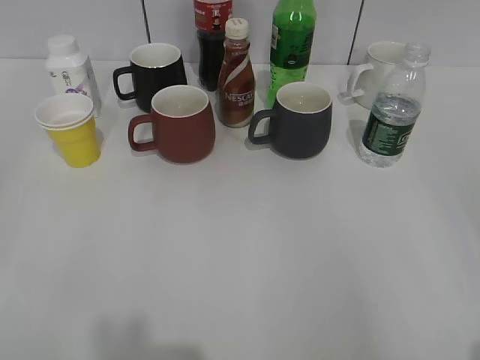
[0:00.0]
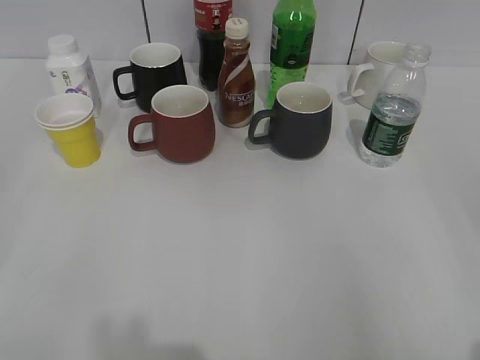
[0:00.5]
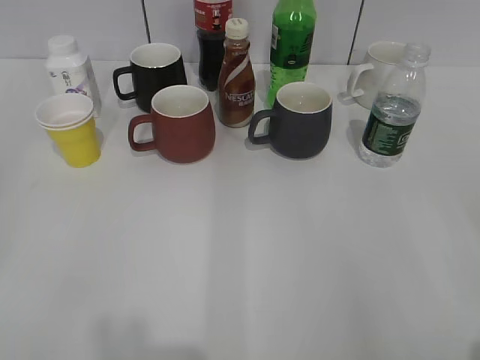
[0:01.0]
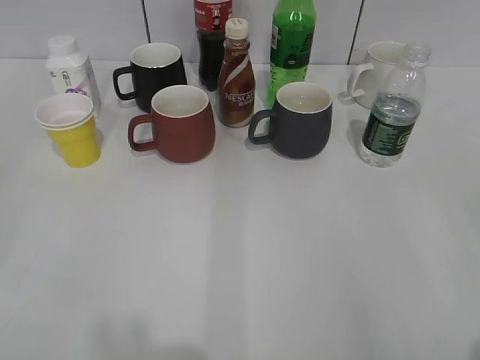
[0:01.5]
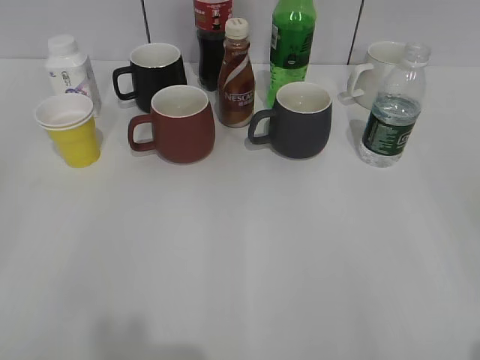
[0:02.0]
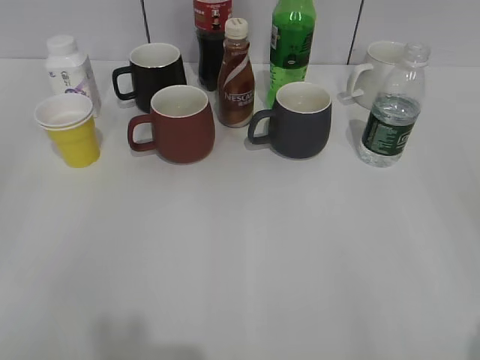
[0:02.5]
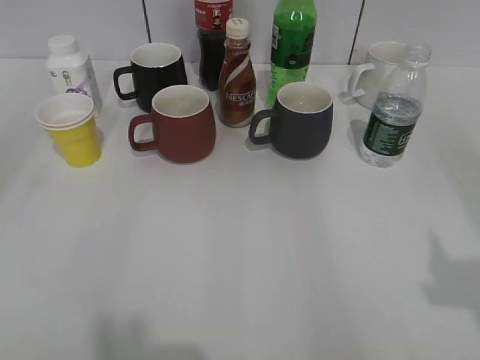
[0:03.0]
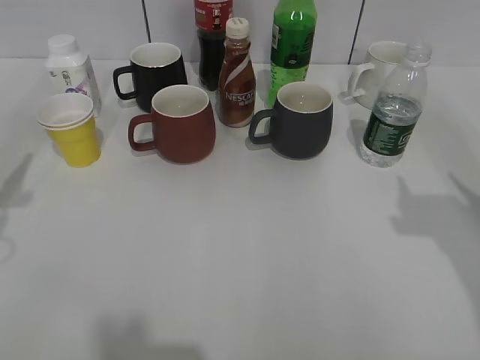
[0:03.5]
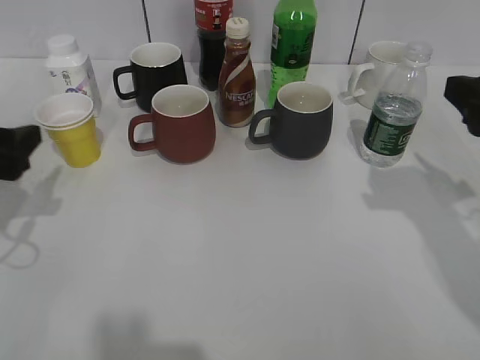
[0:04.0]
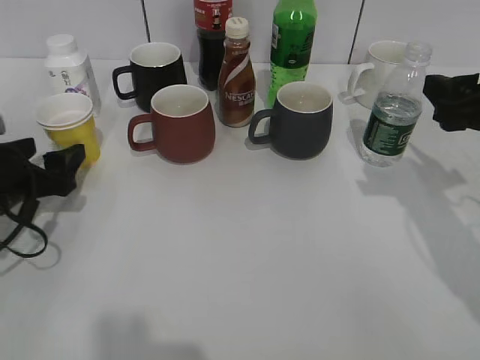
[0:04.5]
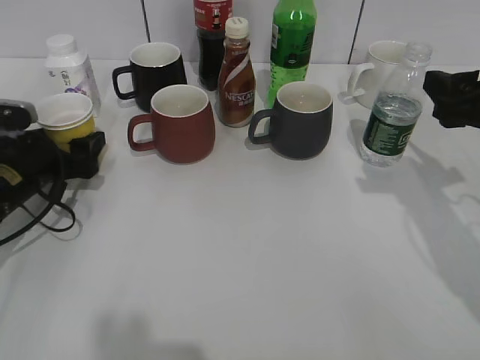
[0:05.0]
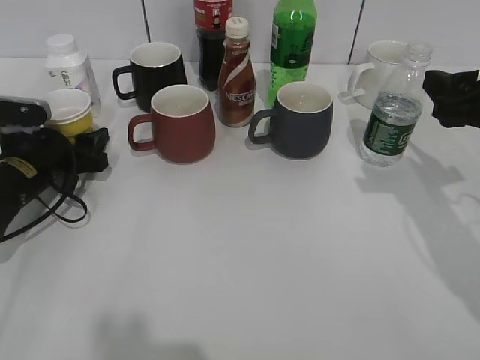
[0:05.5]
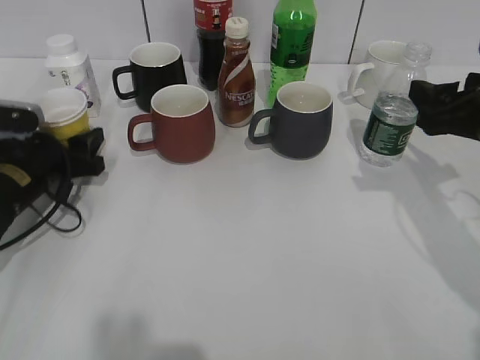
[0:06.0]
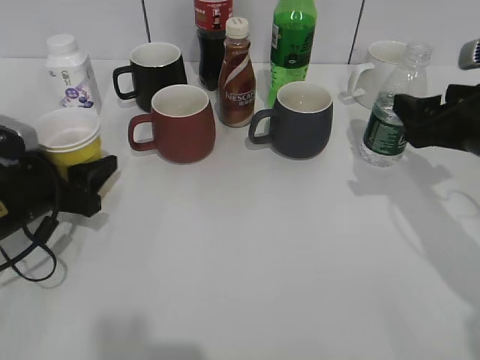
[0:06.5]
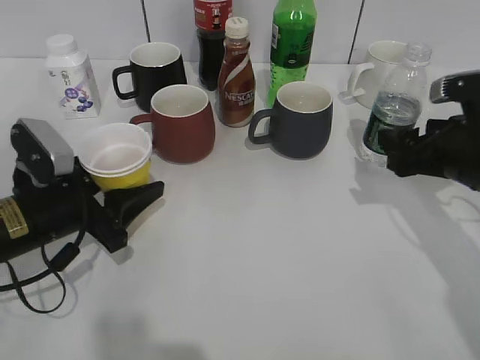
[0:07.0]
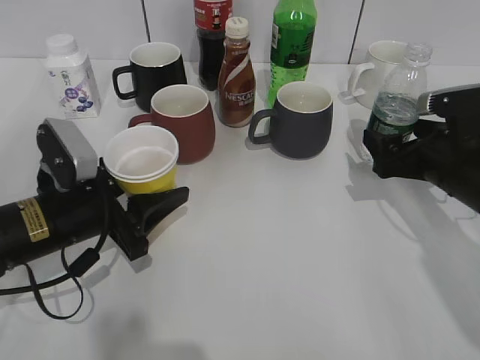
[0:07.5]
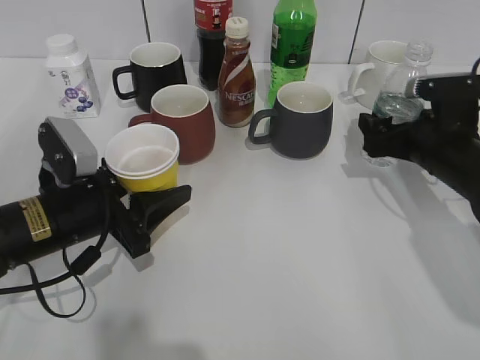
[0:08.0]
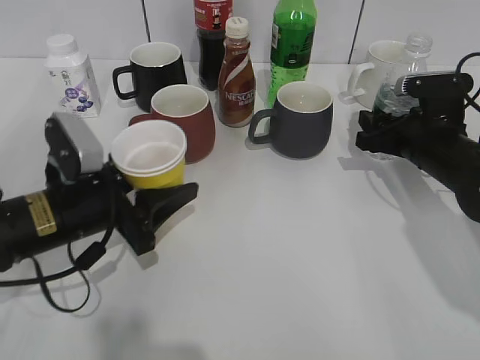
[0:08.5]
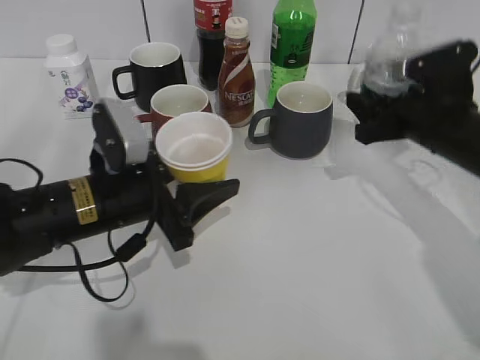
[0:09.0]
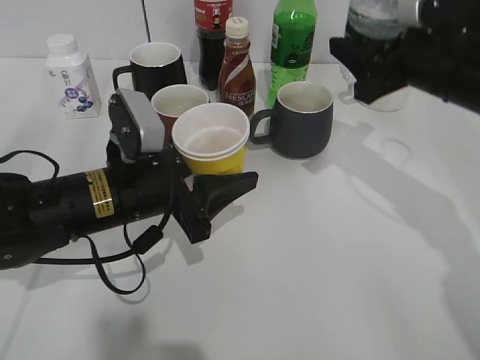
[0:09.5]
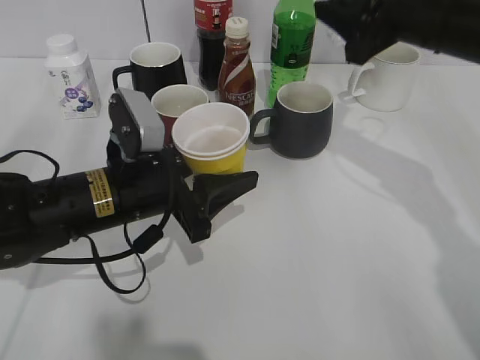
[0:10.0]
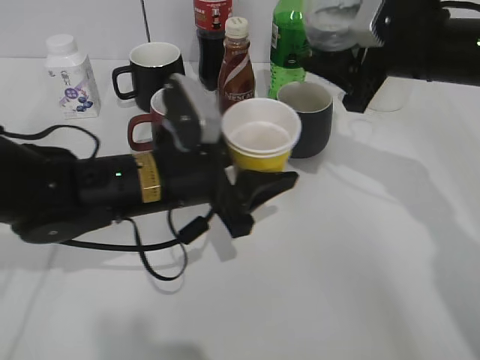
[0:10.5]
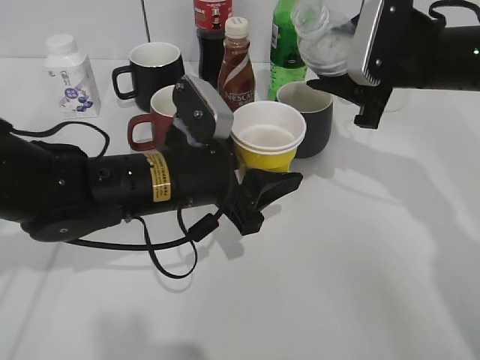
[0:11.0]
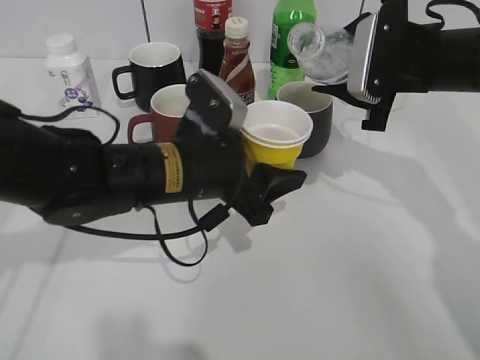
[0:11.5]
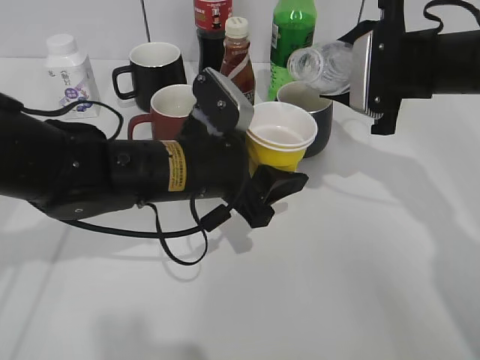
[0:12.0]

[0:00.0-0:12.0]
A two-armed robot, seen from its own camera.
Step, 0:02.5 to 0:05.5: Grasp the yellow paper cup with left gripper.
Step, 0:06.0 to 0:08.0: Grasp the bottle with water with right gripper.
0:02.0 to 0:04.0: Both grippers travel together forward, about 25 cm. The left gripper opens its fingers.
0:04.0 to 0:06.0: The left gripper heads downward and forward, covering about 15 cm, and closes. The right gripper ends up some 5 cm from where it was.
0:06.0 to 0:08.0: The left gripper shifts about 10 cm backward and to the right. Meanwhile the right gripper is displaced downward and forward by roughly 10 cm.
0:08.0 to 0:10.0: The right gripper goes about 15 cm upward, and closes up. Meanwhile the left gripper heads to the right, covering approximately 5 cm.
0:10.0 to 0:12.0: The left gripper heads to the right, covering roughly 5 cm.

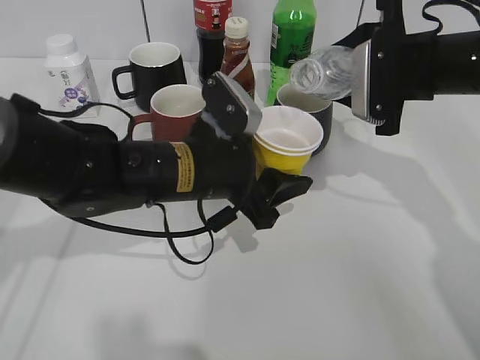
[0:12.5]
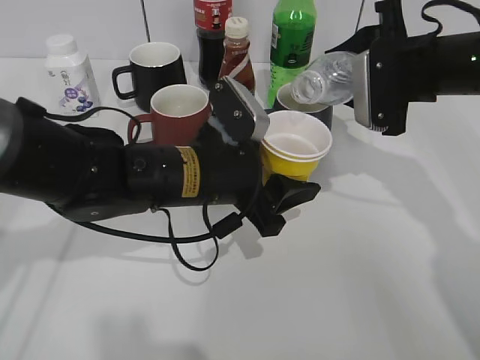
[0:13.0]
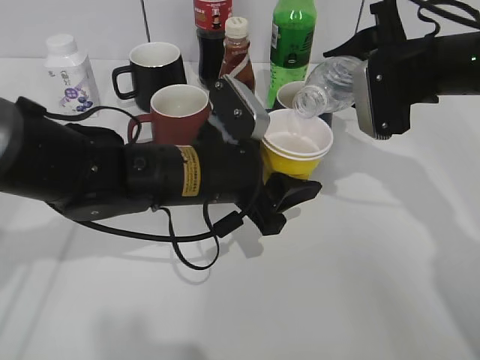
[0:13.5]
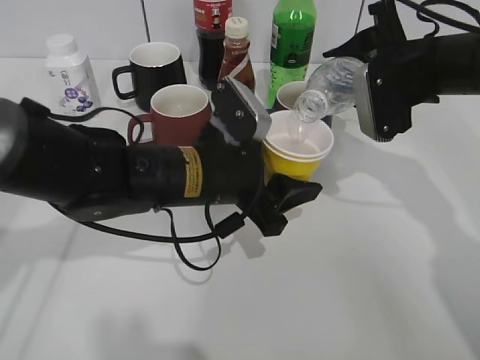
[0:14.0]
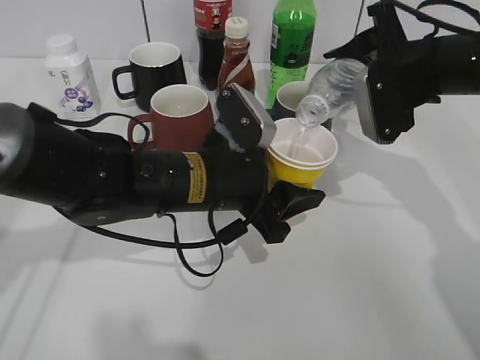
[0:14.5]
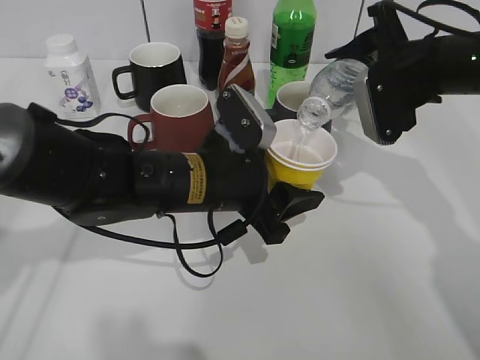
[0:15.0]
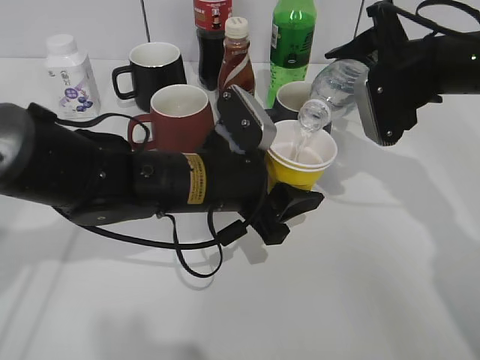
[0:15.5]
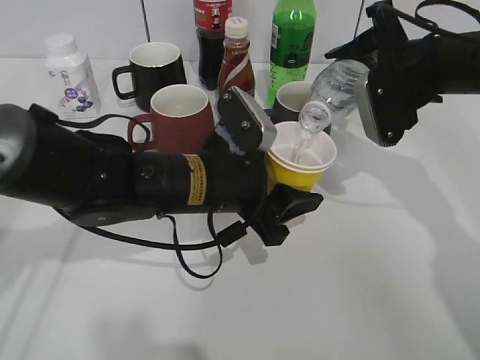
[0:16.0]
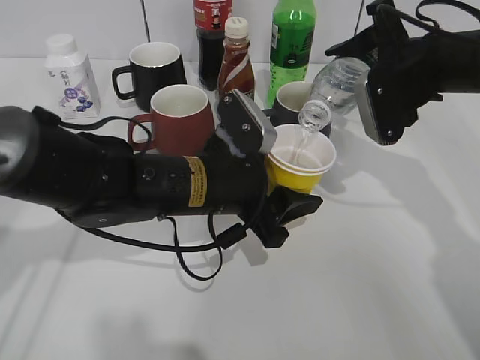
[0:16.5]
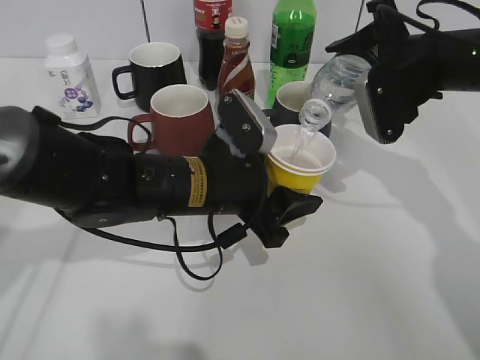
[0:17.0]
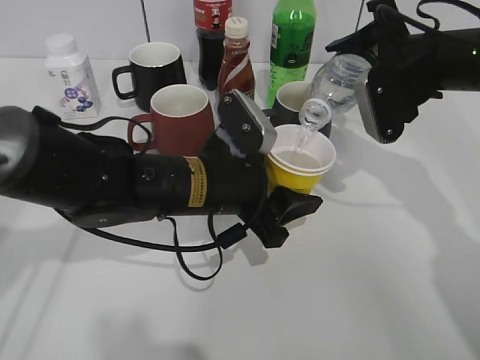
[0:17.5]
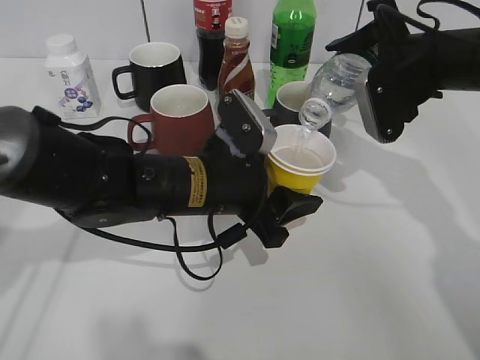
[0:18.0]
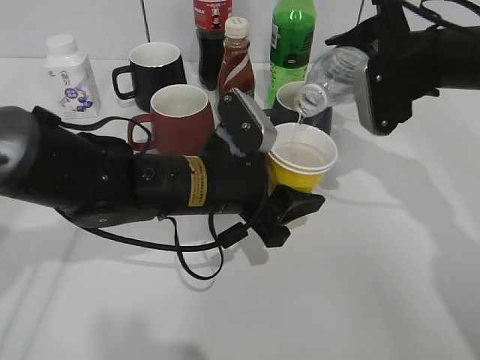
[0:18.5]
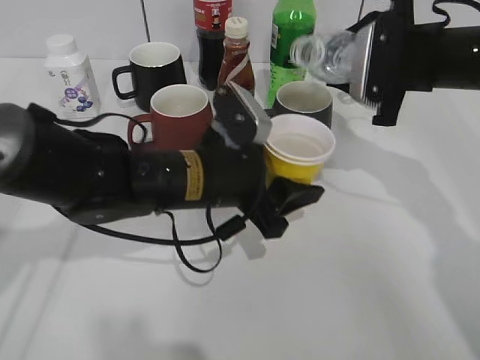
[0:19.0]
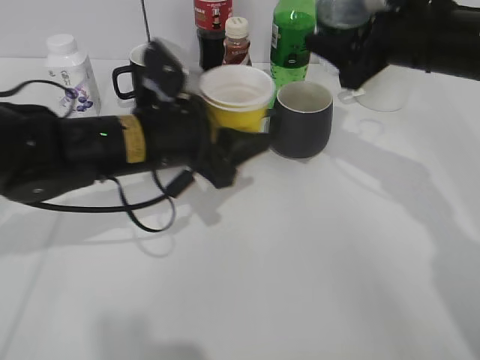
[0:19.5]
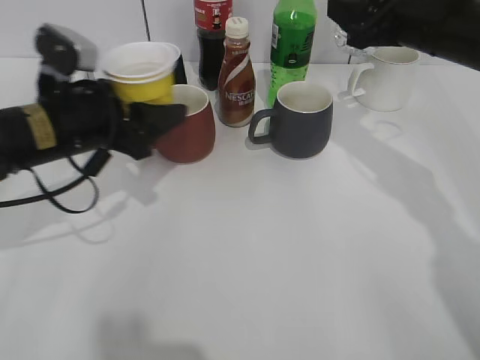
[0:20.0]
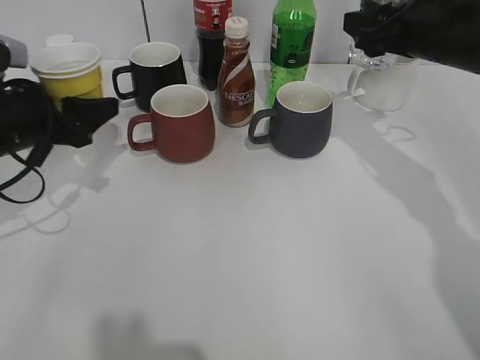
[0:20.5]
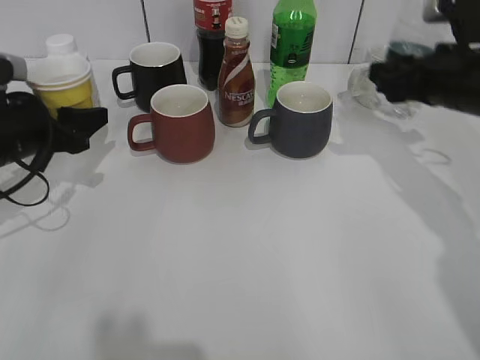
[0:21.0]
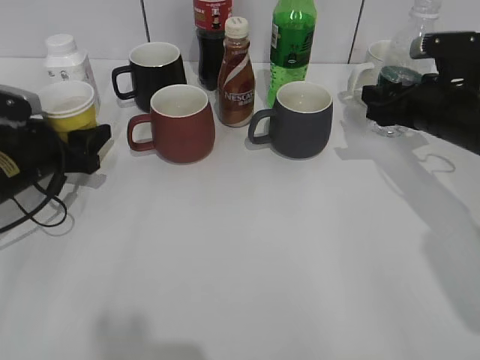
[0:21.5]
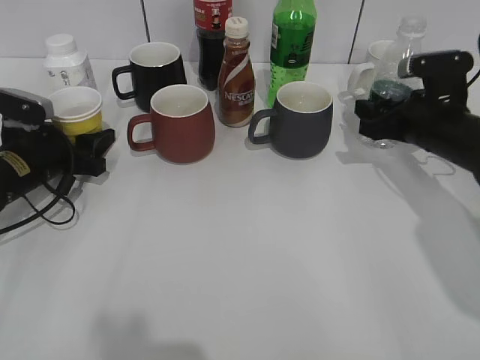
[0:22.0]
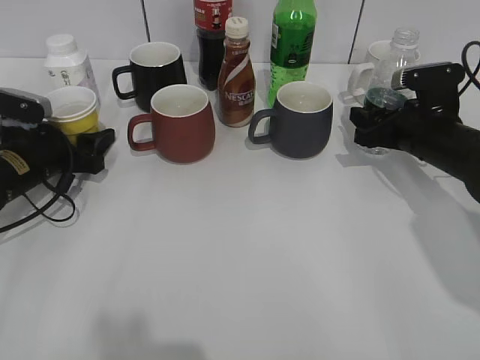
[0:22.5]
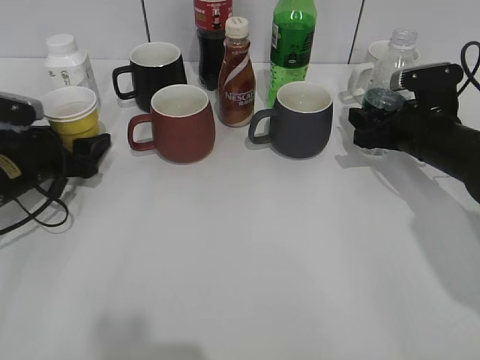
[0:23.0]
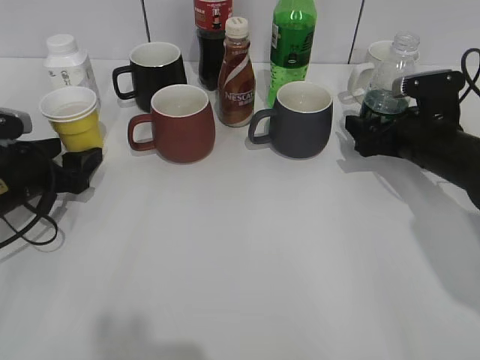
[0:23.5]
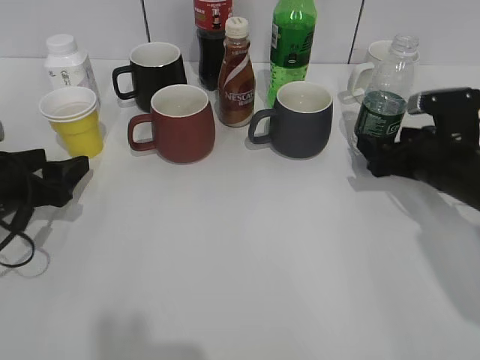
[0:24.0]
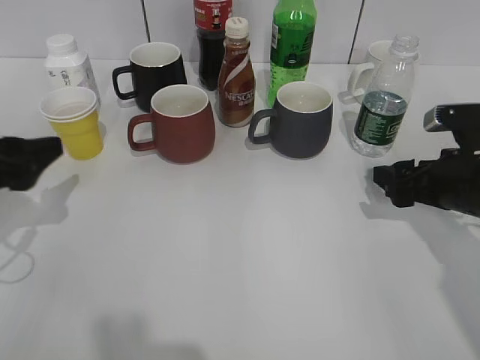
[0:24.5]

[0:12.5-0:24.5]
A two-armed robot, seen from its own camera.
Step, 0:12.5 to 0:19.5: Pour the water from bottle to cup with right gripper.
Step, 0:20.0 to 0:22.5: Place the yellow paper cup on the table with left gripper.
Step, 0:23.0 to 0:23.5: Place the water bottle on the table with right gripper.
0:12.5 to 0:14.5: There are only small adjustments of the grippers.
0:14.5 to 0:18.5: The grippers stay close to where they were, moving slightly.
0:18.5 to 0:20.5: The left gripper travels to the left by about 20 cm.
0:20.5 to 0:22.5: Both grippers move downward, approximately 10 cm.
0:22.5 to 0:24.5: The left gripper is displaced backward and upward by some 15 cm. The right gripper is displaced backward by approximately 10 cm, and opens.

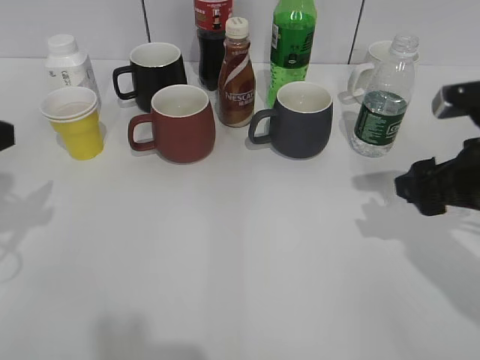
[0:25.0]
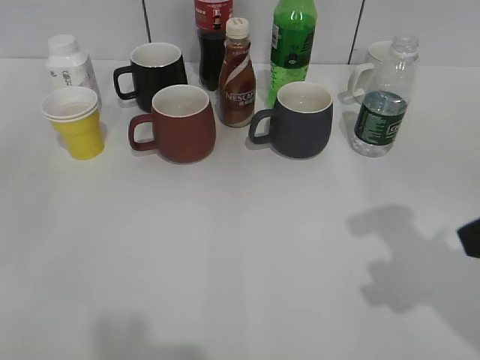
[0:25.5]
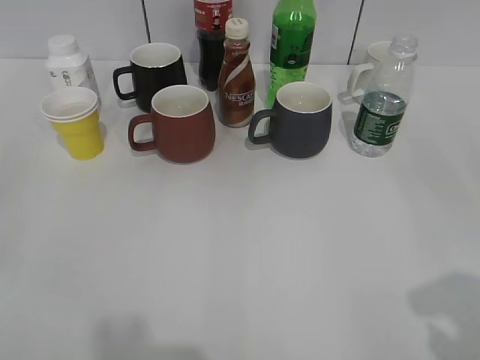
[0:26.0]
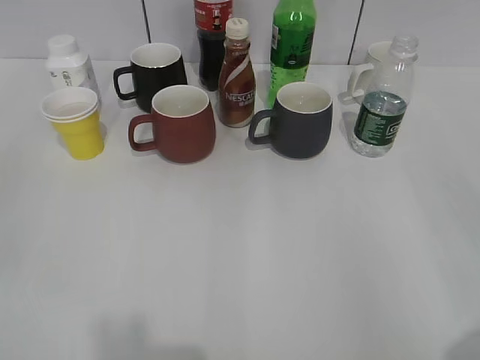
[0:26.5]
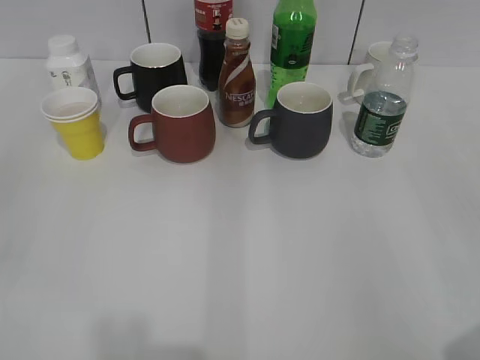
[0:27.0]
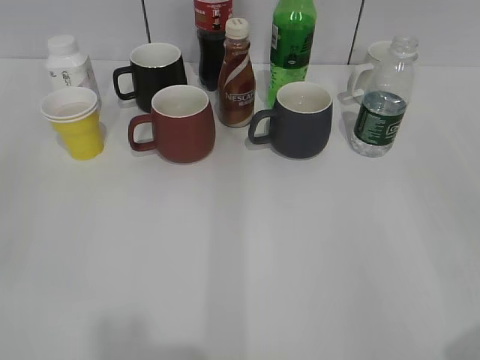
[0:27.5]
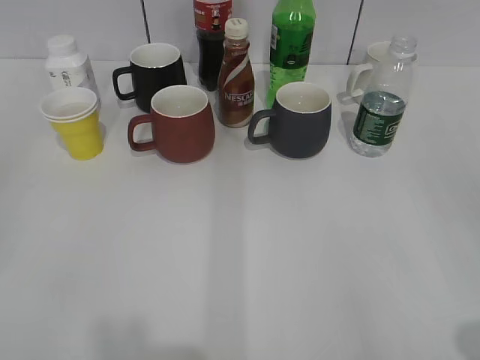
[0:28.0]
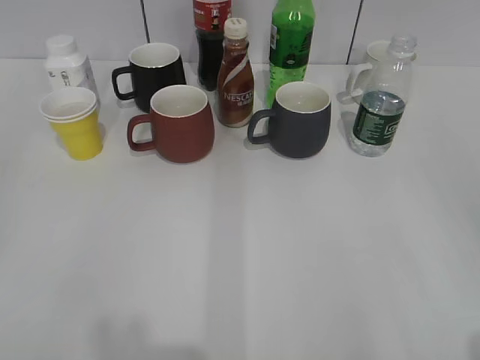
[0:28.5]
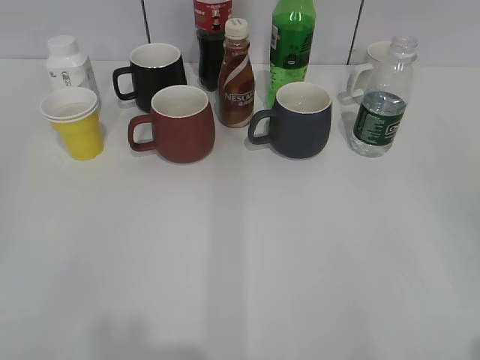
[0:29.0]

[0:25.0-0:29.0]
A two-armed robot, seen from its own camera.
0:25.0 to 0:27.0: The right gripper is displaced backward and upward by roughly 25 cm. The left gripper is displaced backward by roughly 15 cm.
